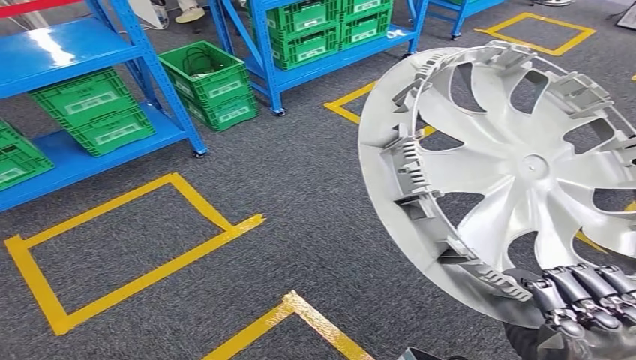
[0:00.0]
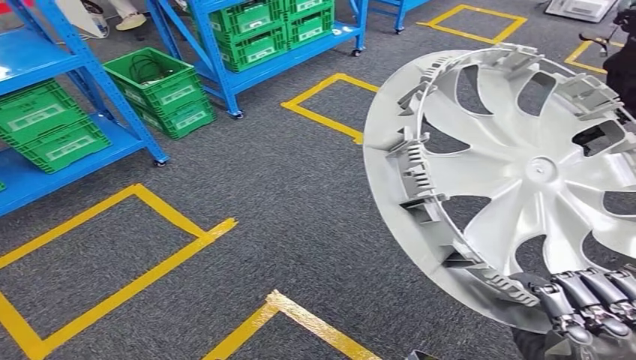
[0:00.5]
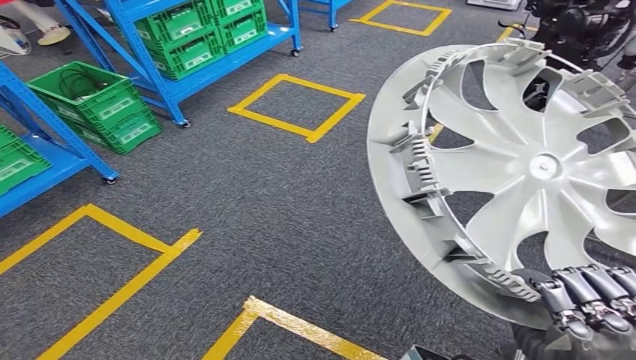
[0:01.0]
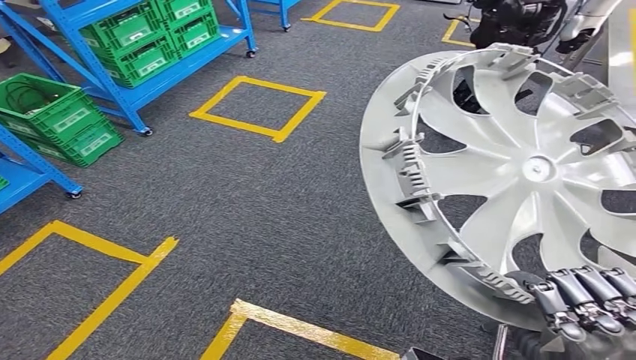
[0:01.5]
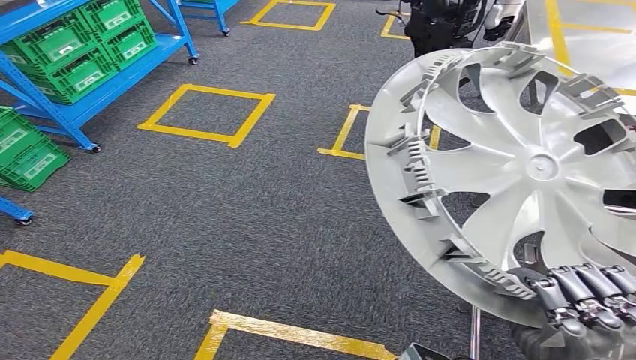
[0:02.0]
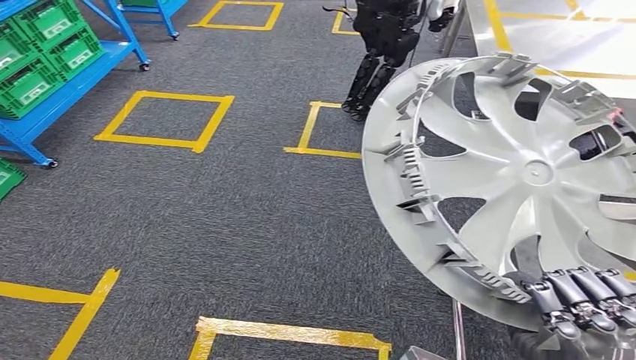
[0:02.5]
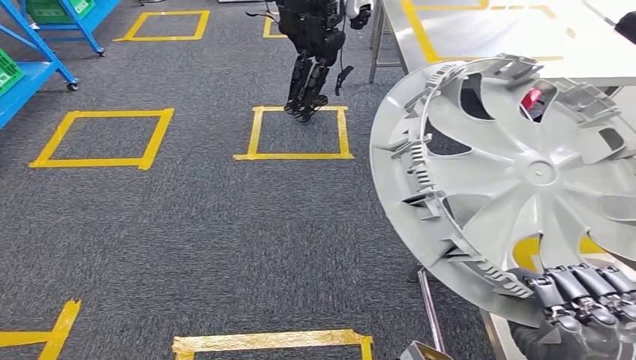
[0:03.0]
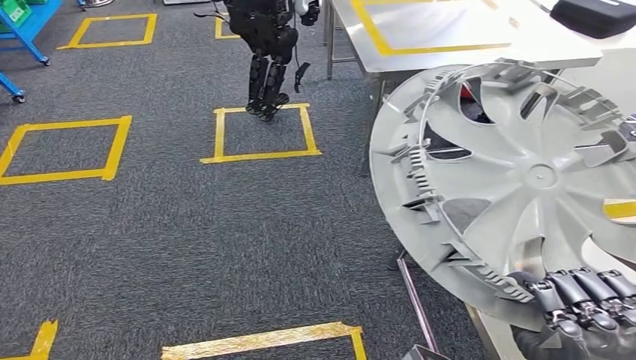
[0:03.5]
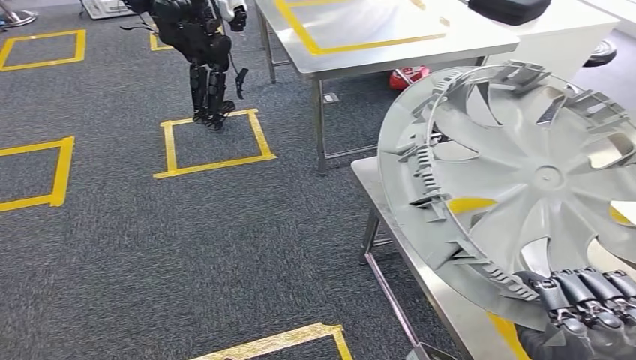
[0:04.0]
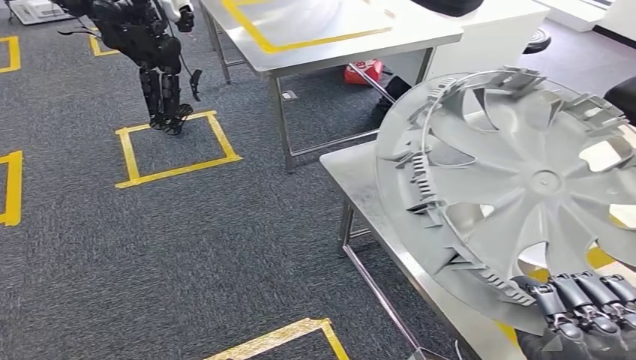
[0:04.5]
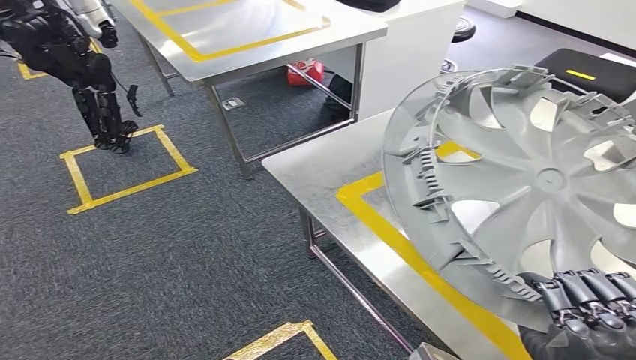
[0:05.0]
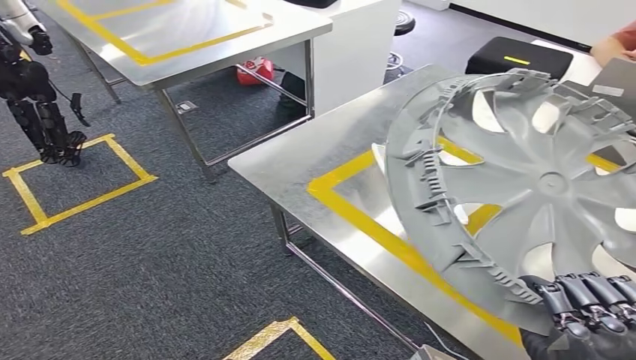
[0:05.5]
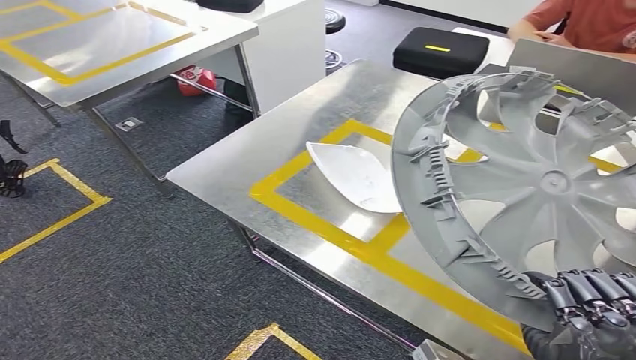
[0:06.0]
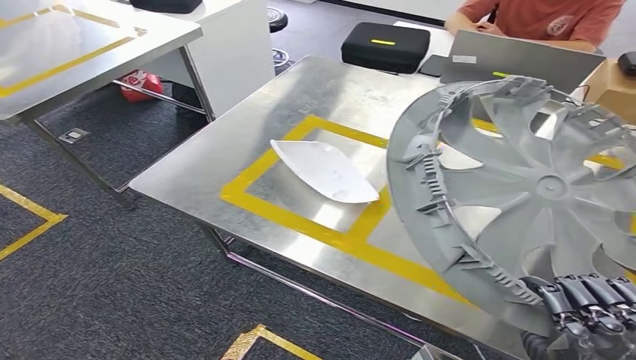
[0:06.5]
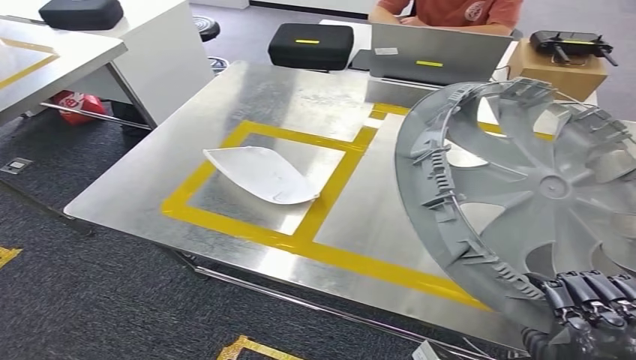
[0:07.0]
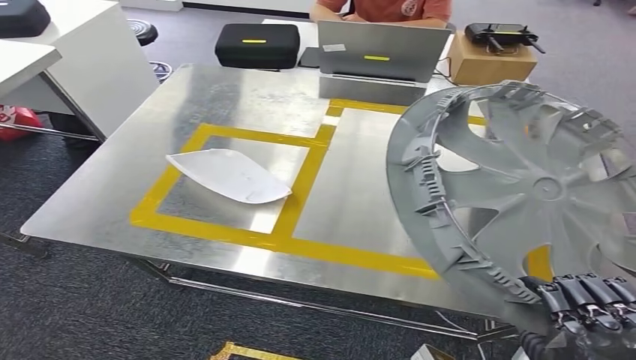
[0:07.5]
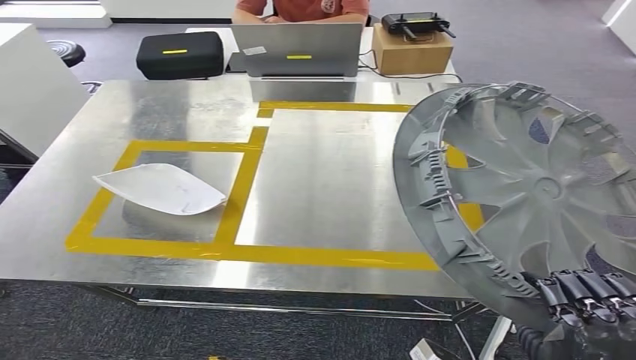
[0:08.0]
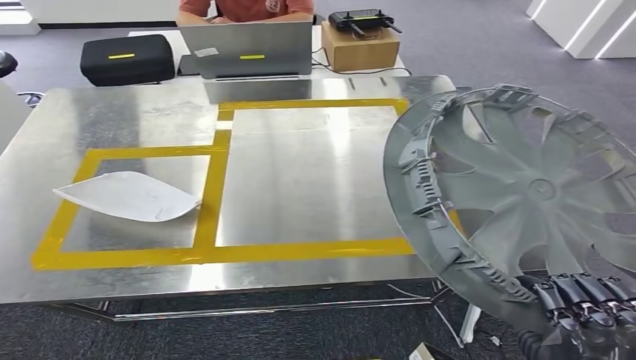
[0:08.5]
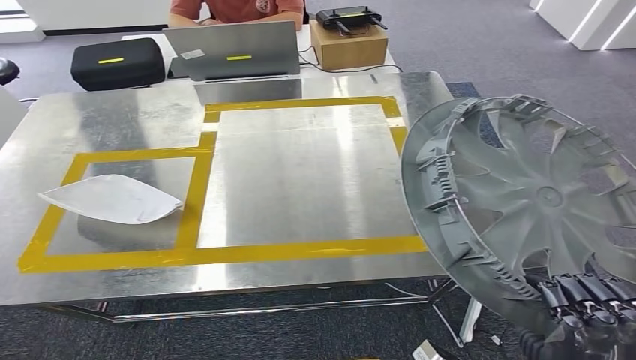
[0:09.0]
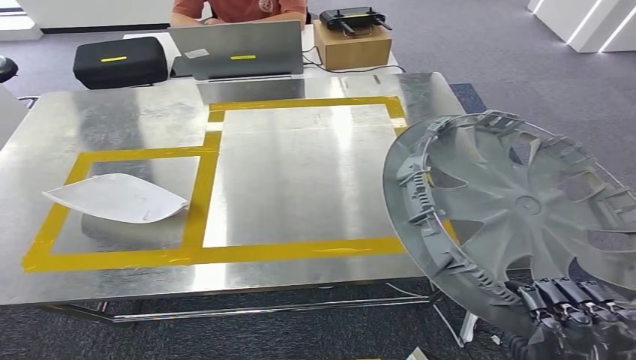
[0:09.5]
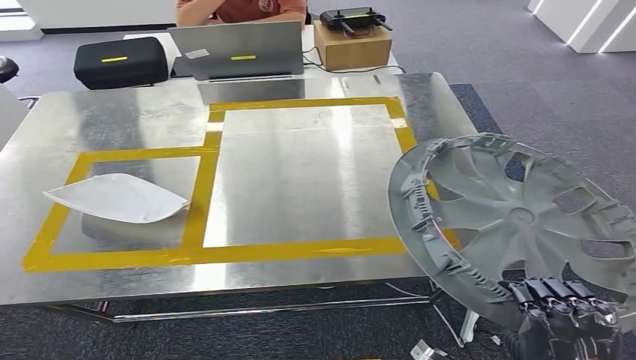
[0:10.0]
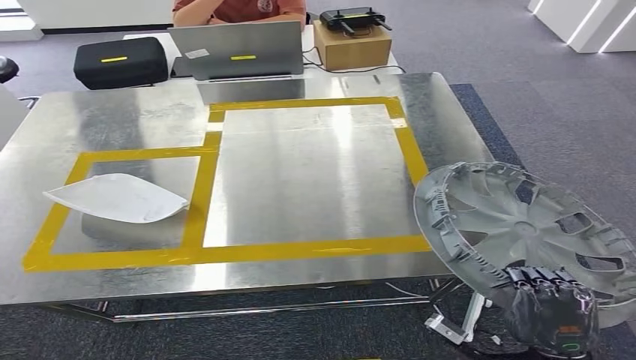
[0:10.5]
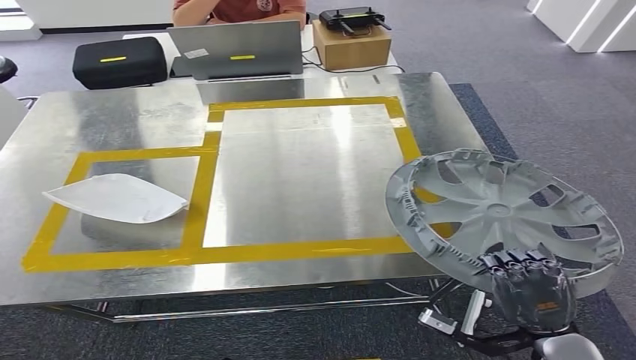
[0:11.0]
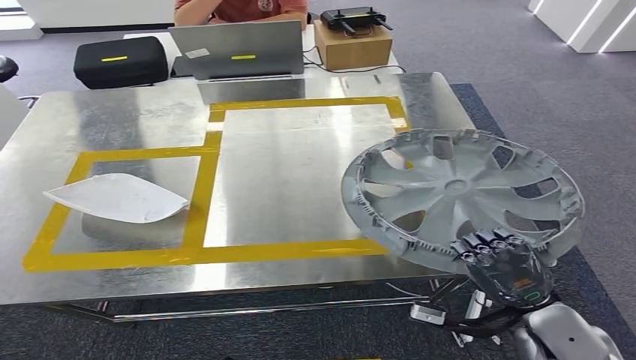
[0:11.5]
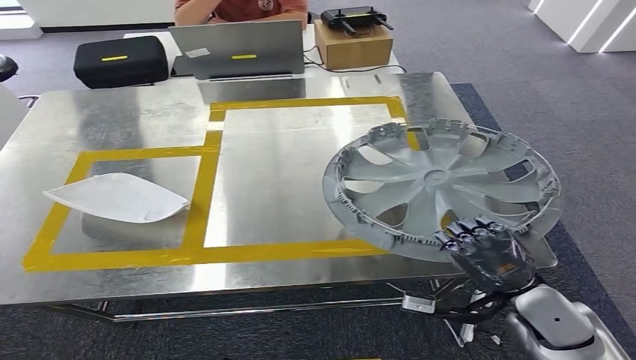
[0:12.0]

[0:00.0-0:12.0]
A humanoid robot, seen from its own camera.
Step, 0:00.0 to 0:08.0: Move the small component to the workbench.
0:10.0 to 0:12.0: The right hand moves forward, some 15 cm.

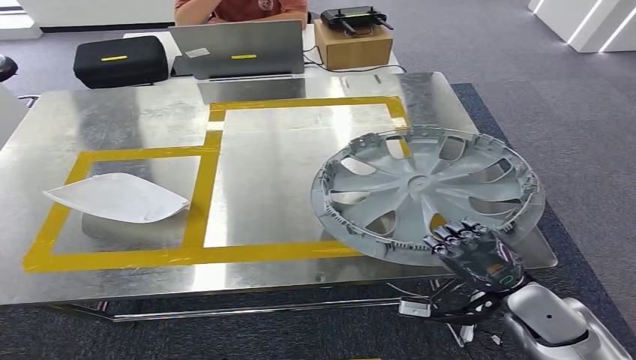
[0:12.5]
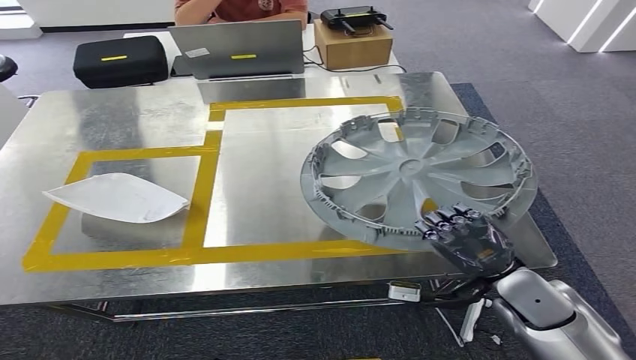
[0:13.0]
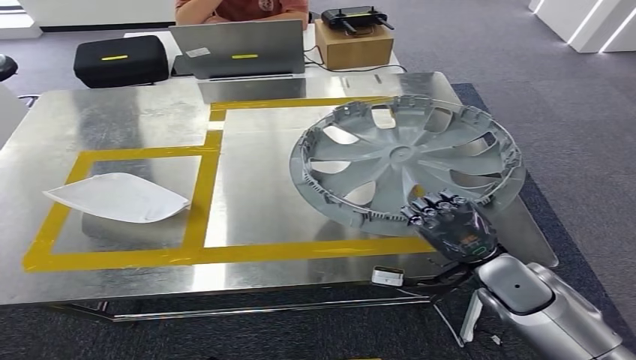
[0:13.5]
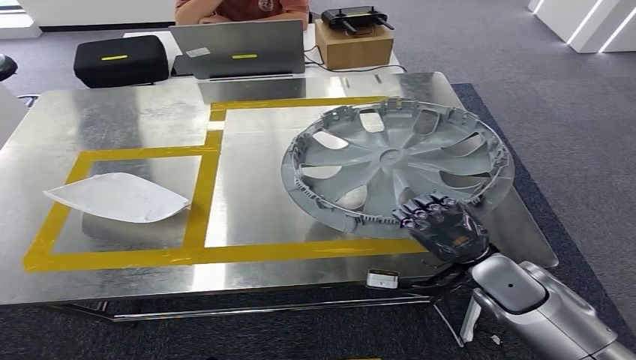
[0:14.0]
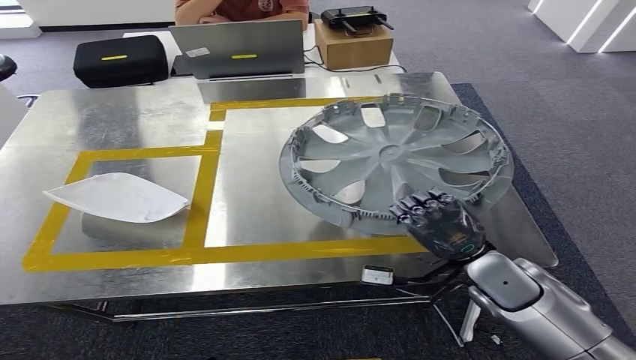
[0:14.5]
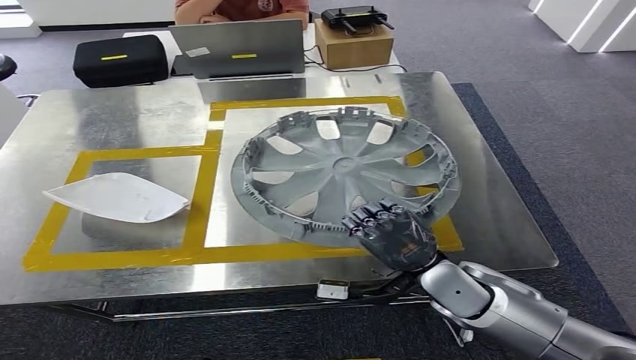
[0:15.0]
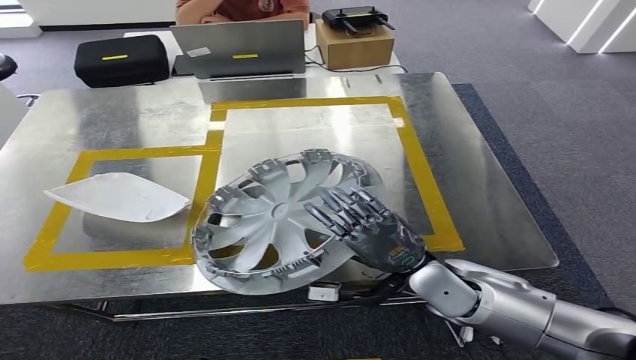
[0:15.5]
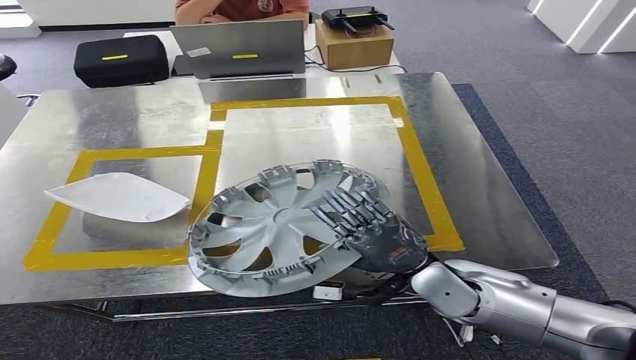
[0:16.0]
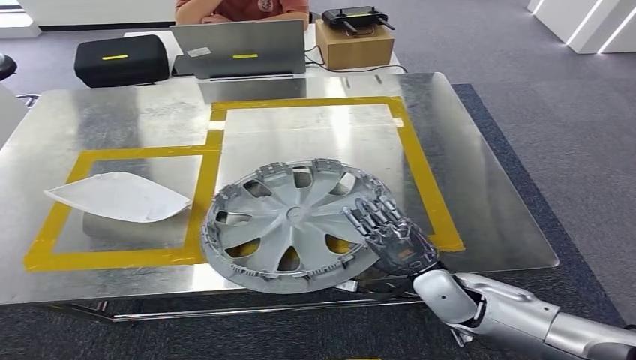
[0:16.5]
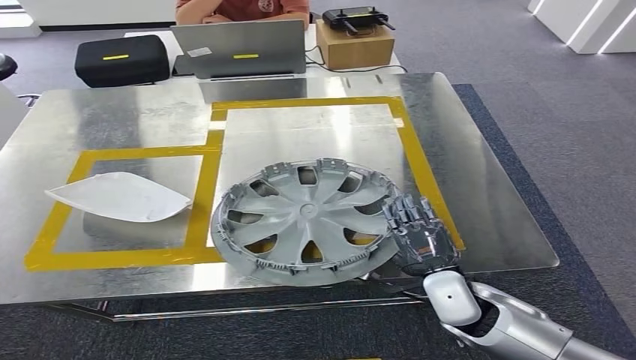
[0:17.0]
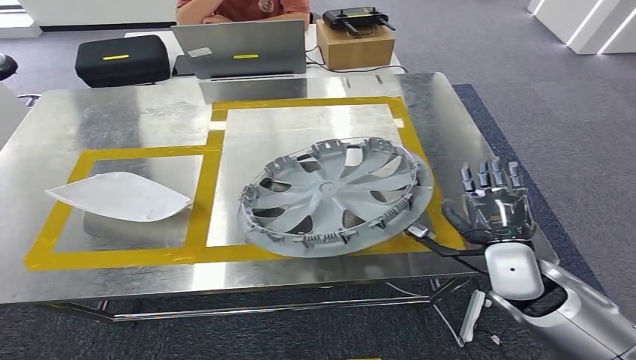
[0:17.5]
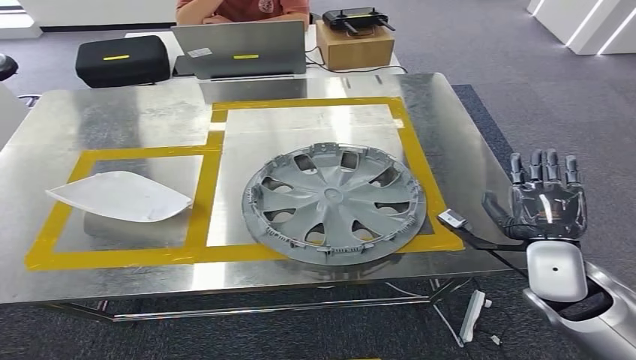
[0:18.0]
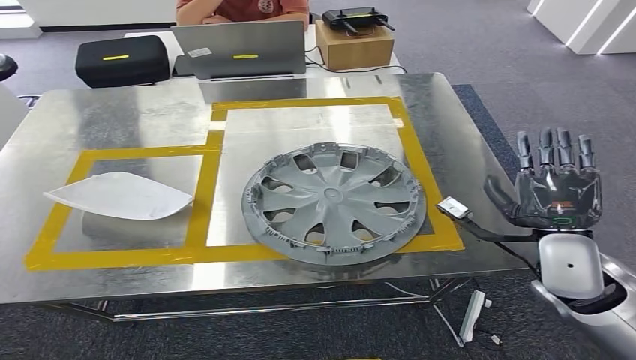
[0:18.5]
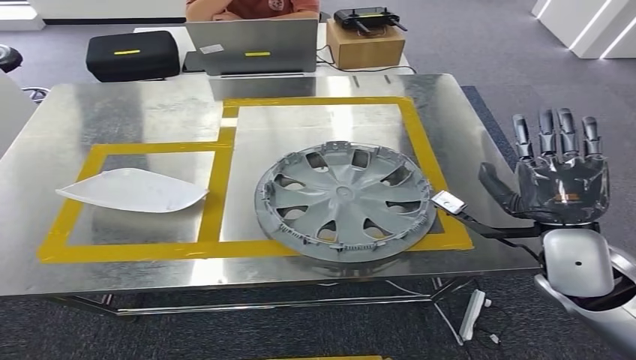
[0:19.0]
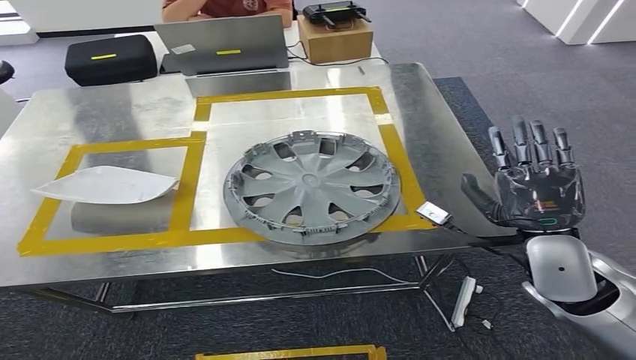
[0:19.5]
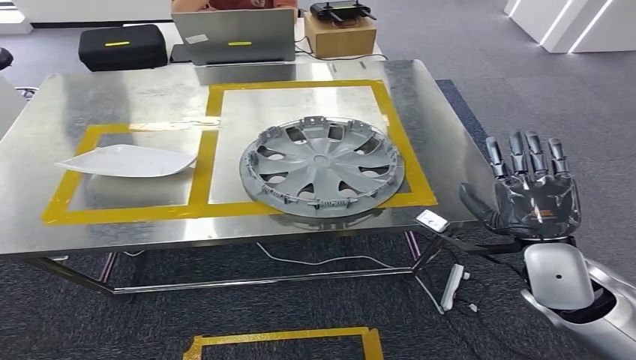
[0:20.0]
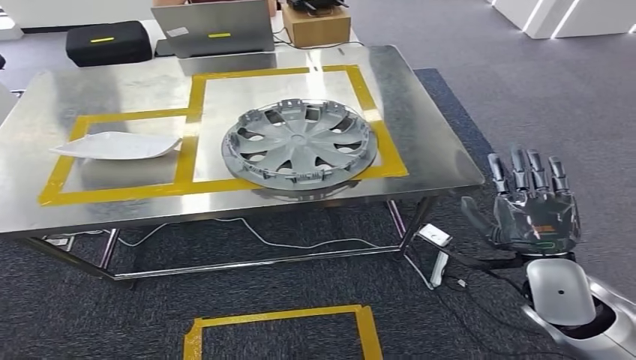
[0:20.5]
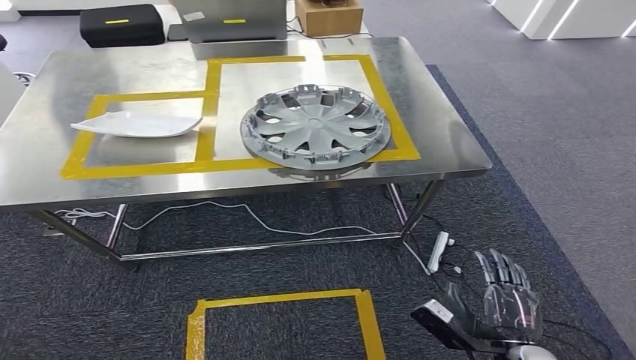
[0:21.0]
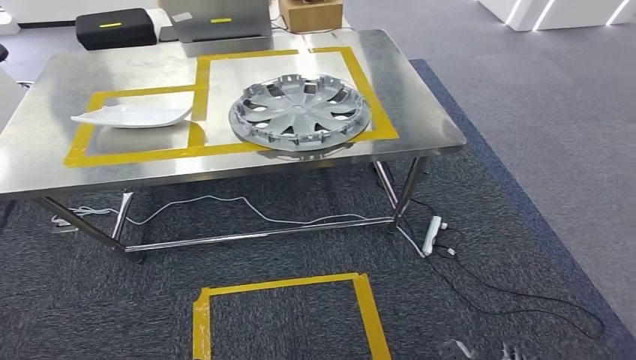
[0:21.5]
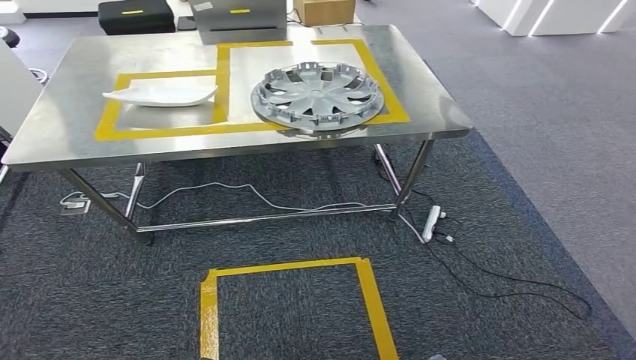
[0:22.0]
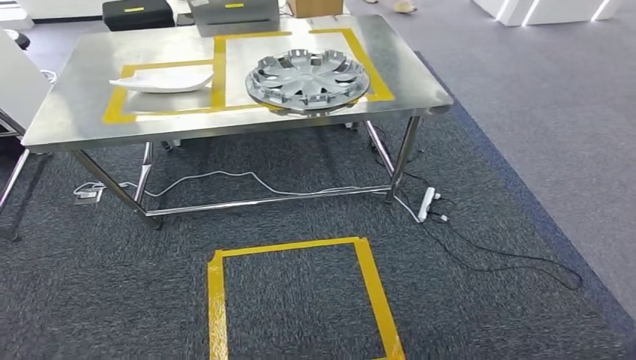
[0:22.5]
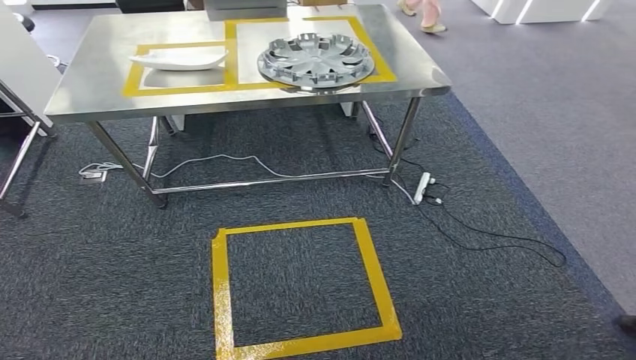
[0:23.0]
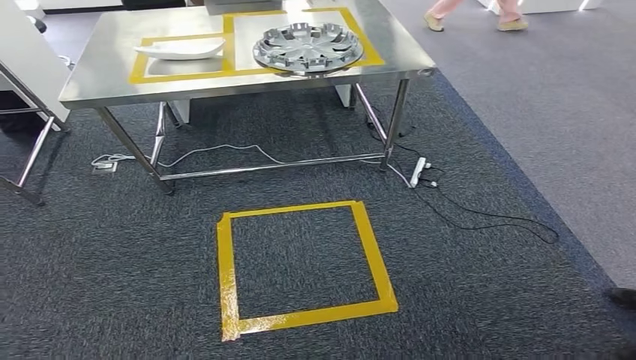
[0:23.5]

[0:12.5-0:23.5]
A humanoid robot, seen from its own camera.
Step, 0:12.5 to 0:19.0: Insert the small component into the corresponding slot on the workbench.
0:12.5 to 0:14.5: The right hand travels forward by approximately 5 cm.
0:14.5 to 0:16.0: The right hand moves to the left, roughly 5 cm.
0:16.0 to 0:18.0: The right hand travels to the right by about 15 cm.
